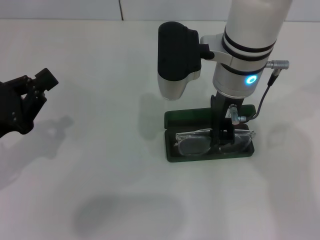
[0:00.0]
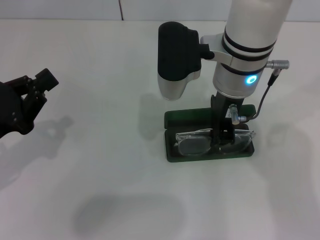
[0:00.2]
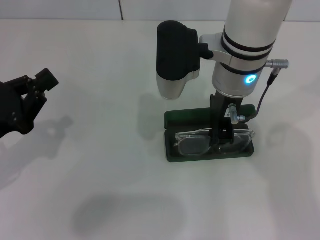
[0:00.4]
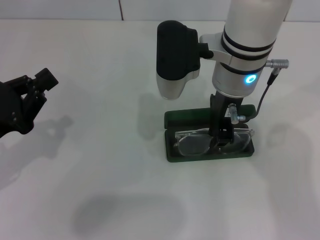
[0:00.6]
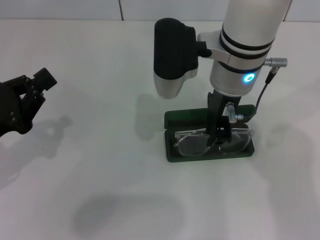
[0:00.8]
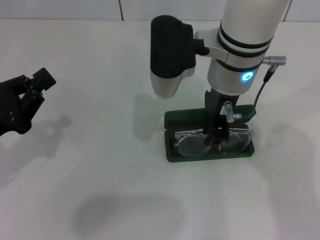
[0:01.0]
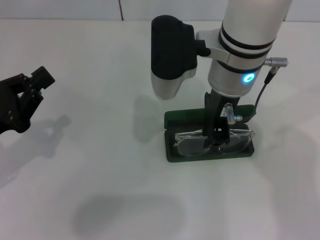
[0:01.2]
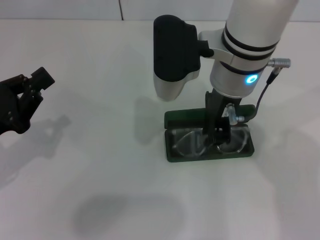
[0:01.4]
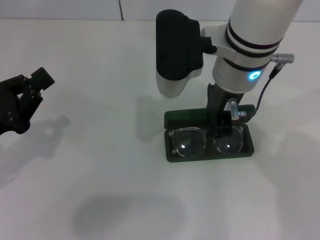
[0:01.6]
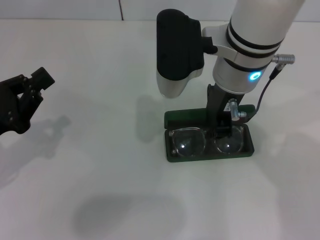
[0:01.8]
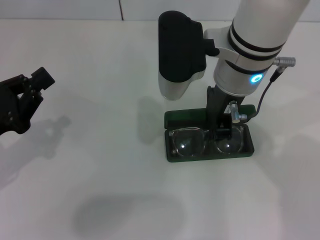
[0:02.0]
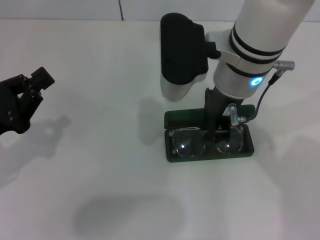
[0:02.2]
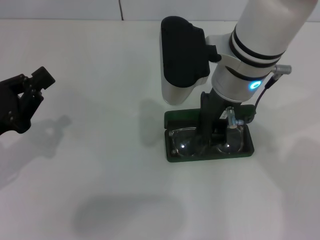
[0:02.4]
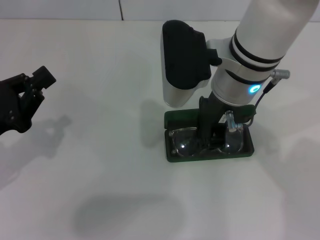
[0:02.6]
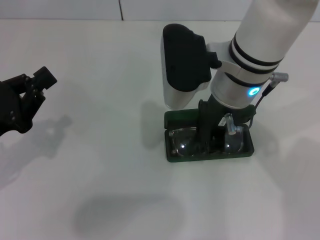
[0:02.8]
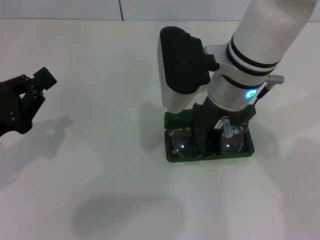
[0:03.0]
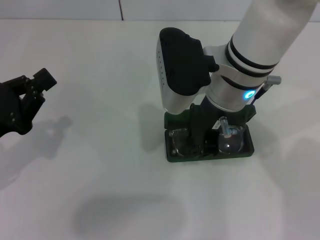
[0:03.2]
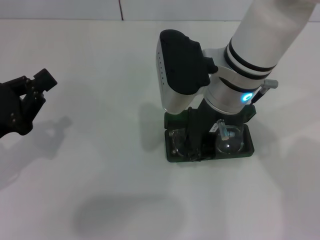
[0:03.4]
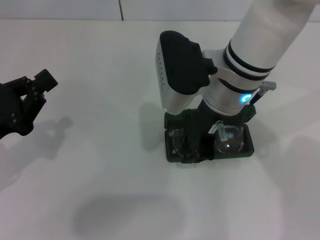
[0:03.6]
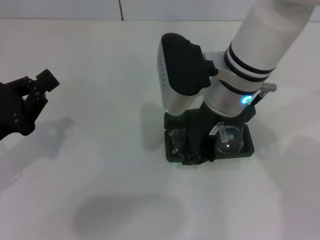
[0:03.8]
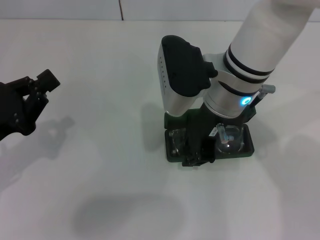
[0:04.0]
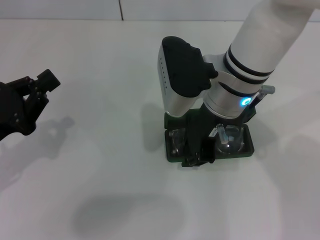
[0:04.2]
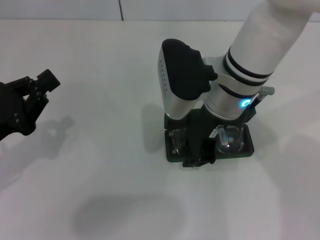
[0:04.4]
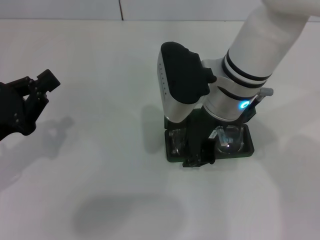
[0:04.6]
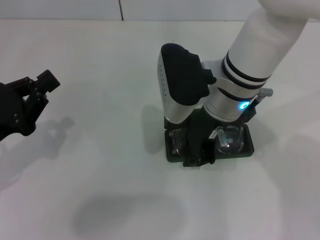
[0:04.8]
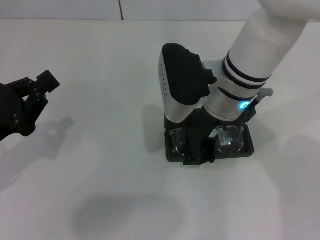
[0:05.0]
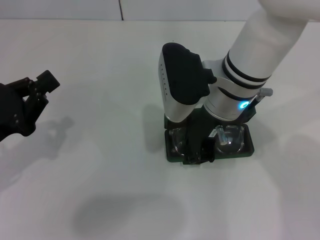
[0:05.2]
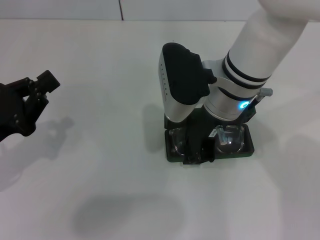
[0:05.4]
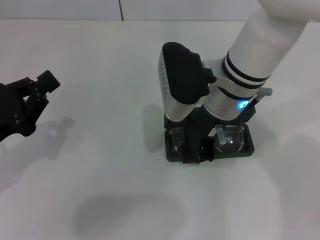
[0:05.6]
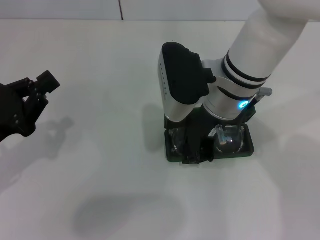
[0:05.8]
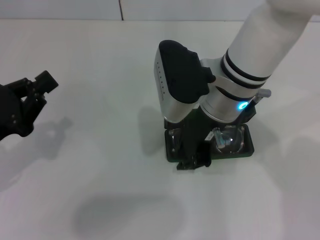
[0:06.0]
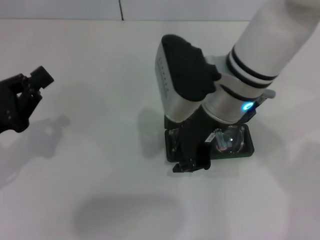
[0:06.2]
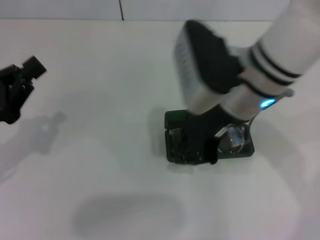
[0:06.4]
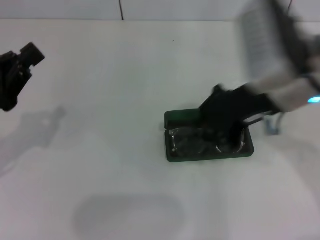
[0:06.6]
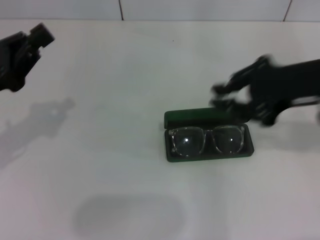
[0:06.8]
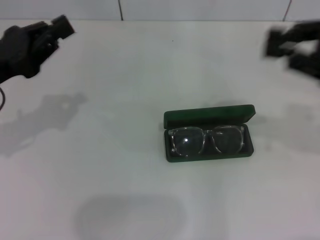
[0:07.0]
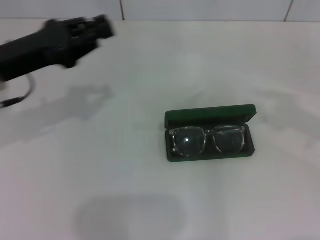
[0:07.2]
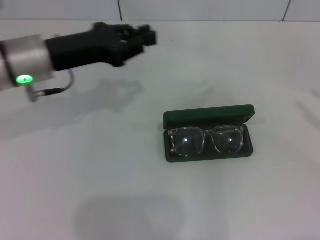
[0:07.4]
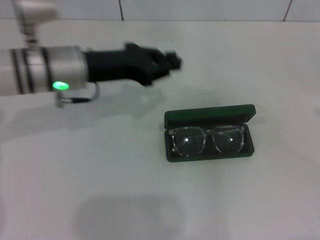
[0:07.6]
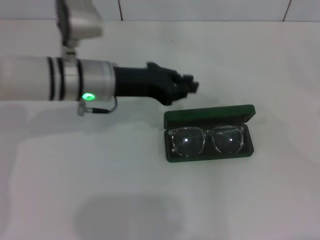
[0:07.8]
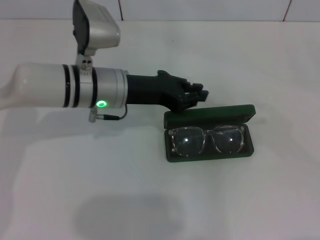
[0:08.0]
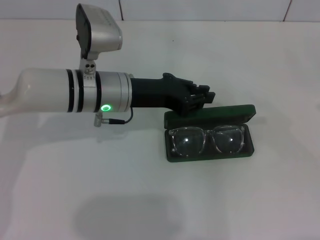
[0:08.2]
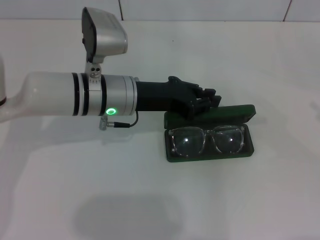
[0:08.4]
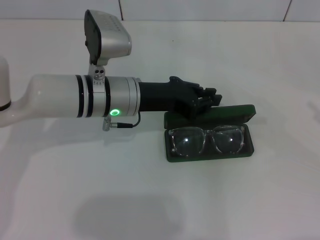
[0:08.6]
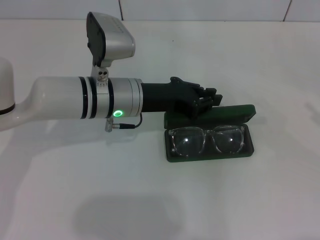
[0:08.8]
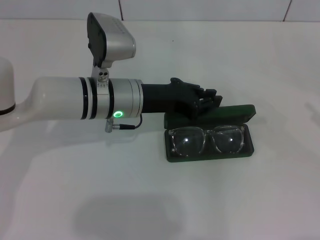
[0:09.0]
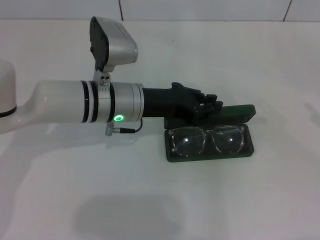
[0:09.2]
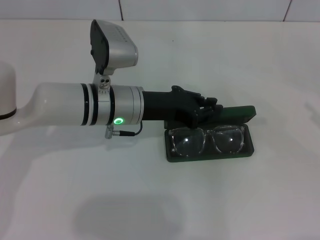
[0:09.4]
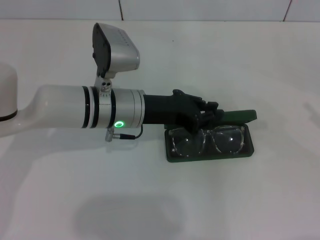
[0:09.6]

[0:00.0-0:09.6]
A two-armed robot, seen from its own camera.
0:00.0 to 0:04.8: The grippers move only a little.
0:04.8 to 0:06.4: The right gripper shifts by some 5 cm.
0:06.4 to 0:08.0: The left gripper heads to the right and forward, covering approximately 25 cm, while the right gripper is displaced to the right by roughly 35 cm, and opens.
0:08.0 to 0:09.6: There are only small adjustments of the grippers.

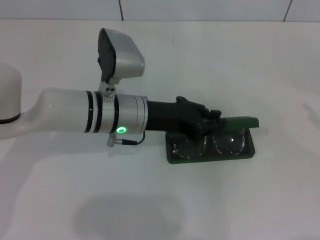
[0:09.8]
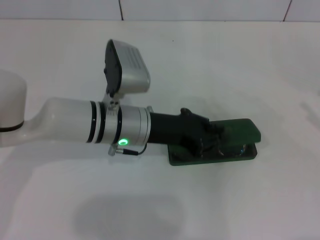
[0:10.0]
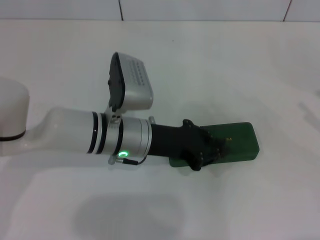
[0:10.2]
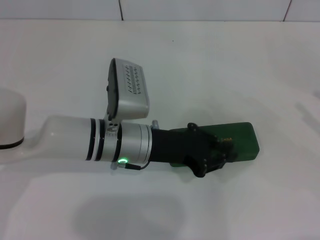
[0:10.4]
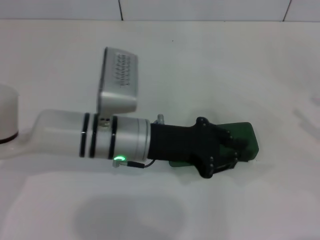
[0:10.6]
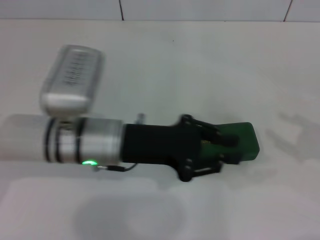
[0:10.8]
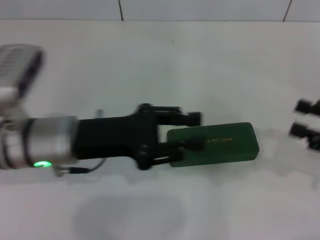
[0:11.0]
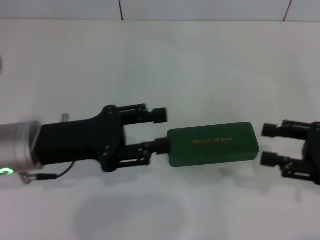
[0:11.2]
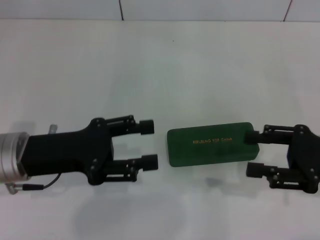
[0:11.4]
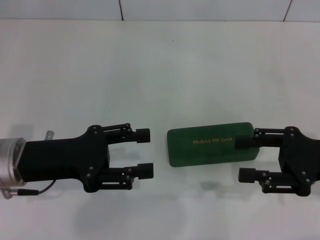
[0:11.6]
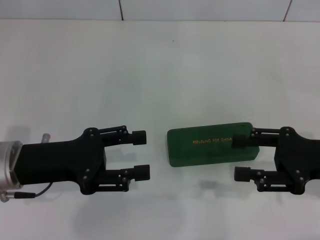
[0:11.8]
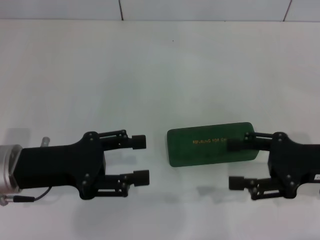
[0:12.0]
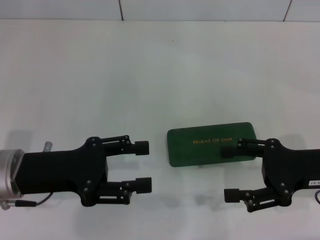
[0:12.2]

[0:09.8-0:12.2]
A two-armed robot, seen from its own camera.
0:09.8 to 0:11.0: The left gripper is displaced to the left and backward by approximately 10 cm. The right gripper heads to the left, covering roughly 5 cm.
0:11.0 to 0:12.2: The two grippers go some 5 cm to the left. The left gripper opens up.
